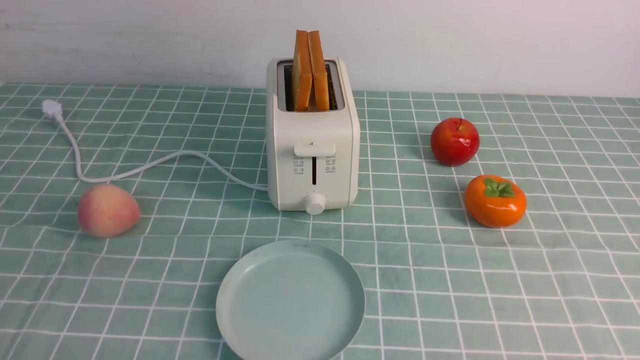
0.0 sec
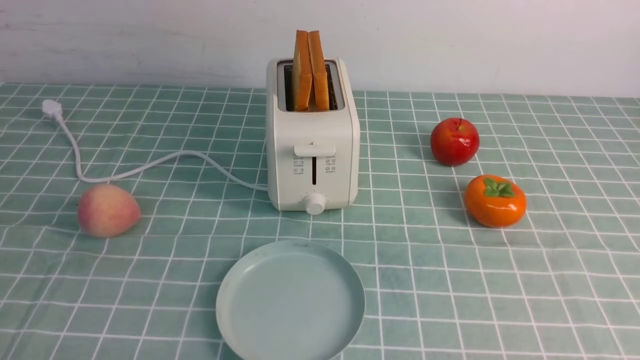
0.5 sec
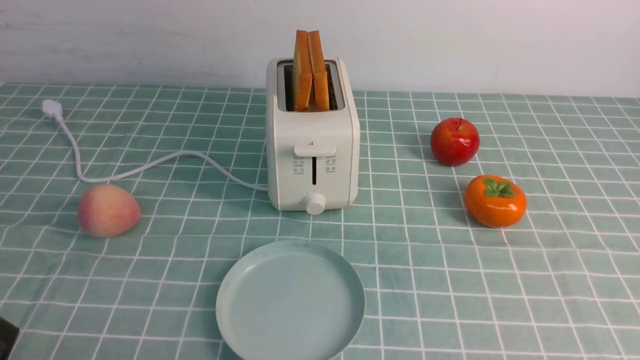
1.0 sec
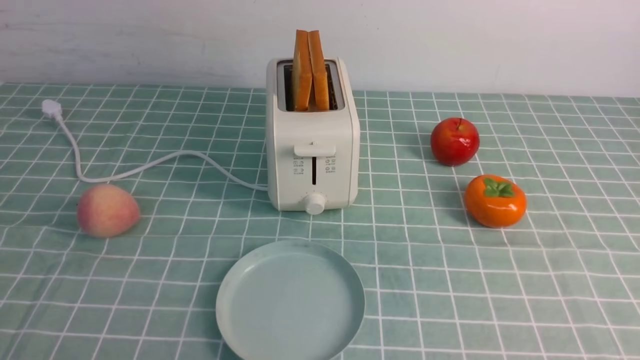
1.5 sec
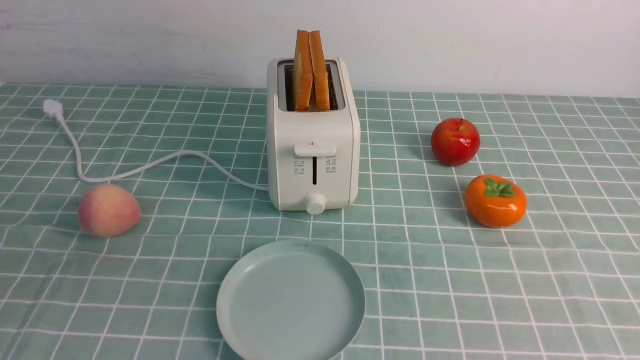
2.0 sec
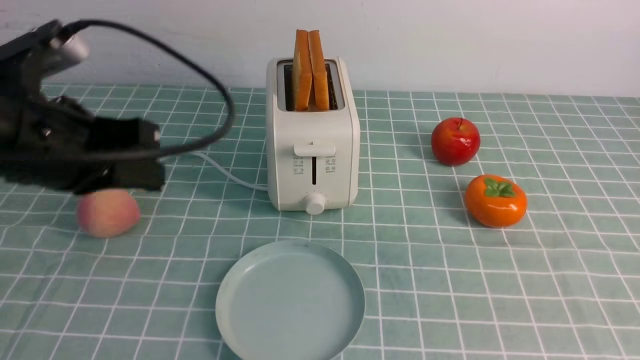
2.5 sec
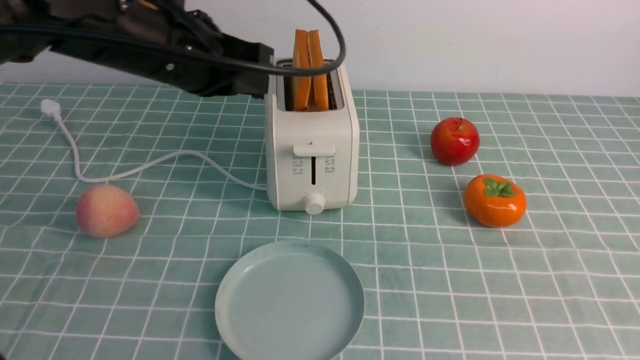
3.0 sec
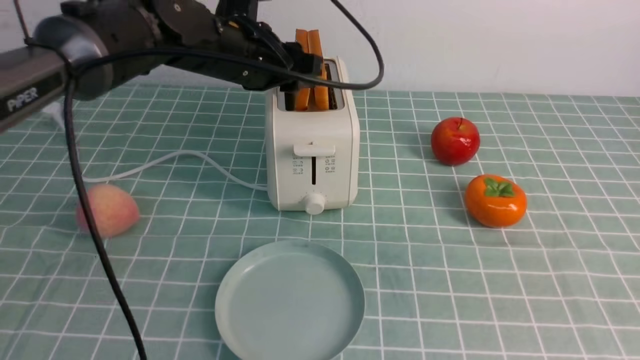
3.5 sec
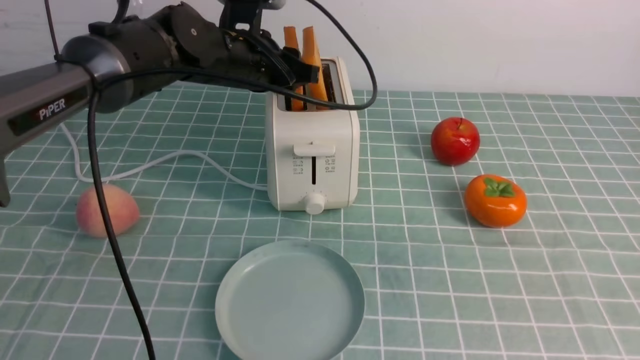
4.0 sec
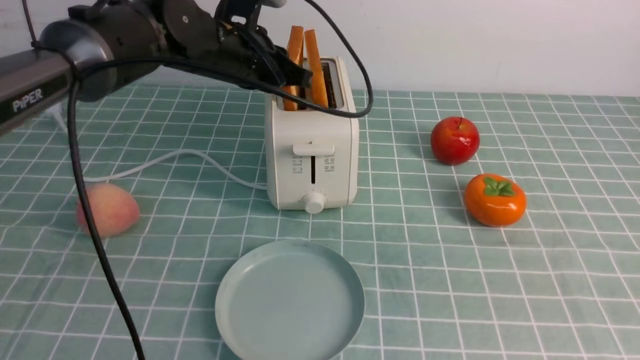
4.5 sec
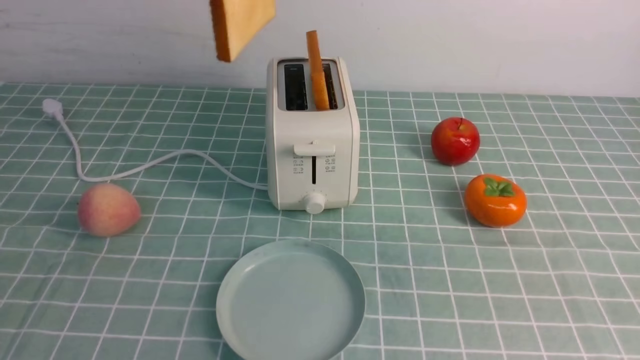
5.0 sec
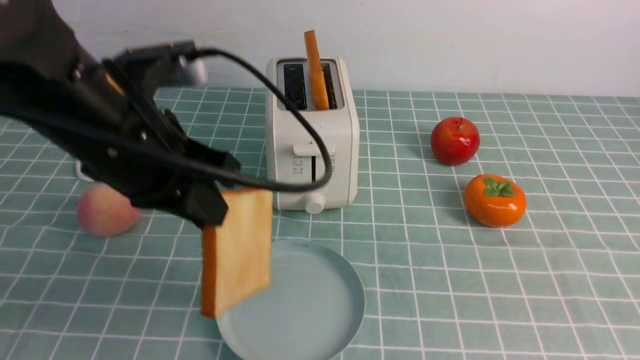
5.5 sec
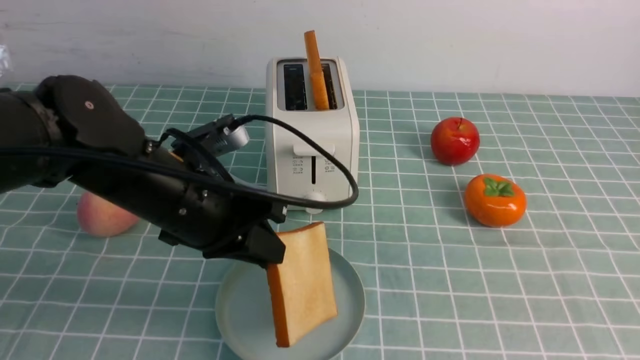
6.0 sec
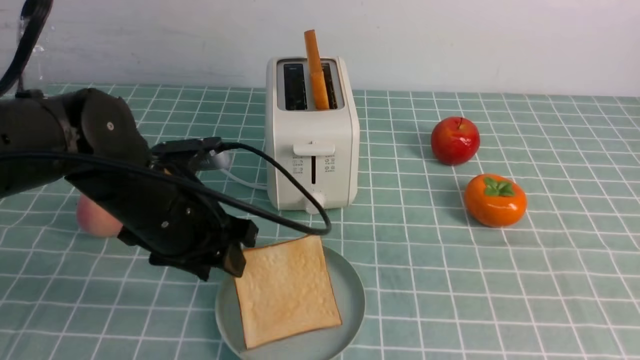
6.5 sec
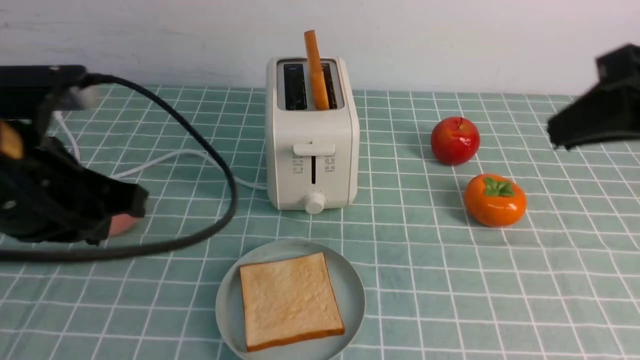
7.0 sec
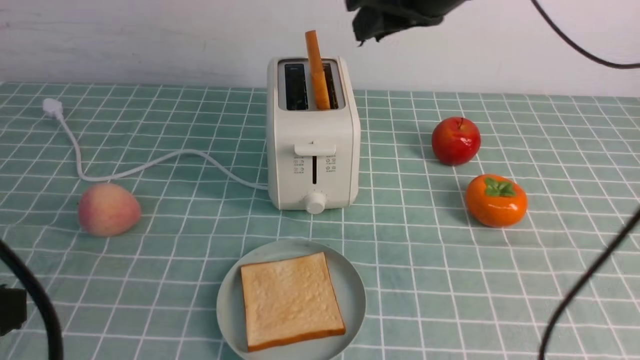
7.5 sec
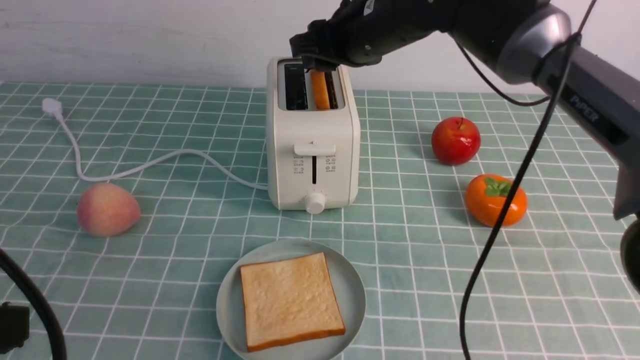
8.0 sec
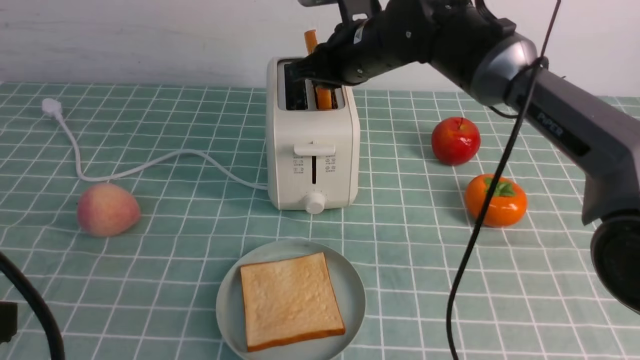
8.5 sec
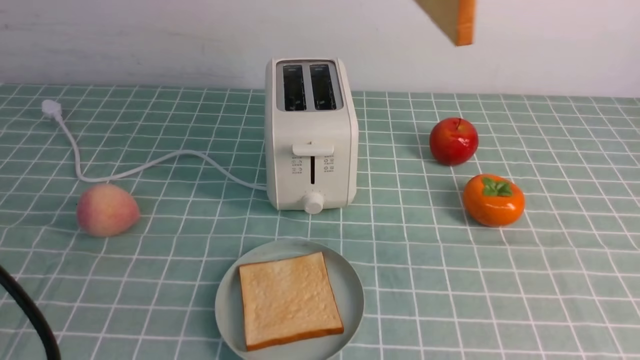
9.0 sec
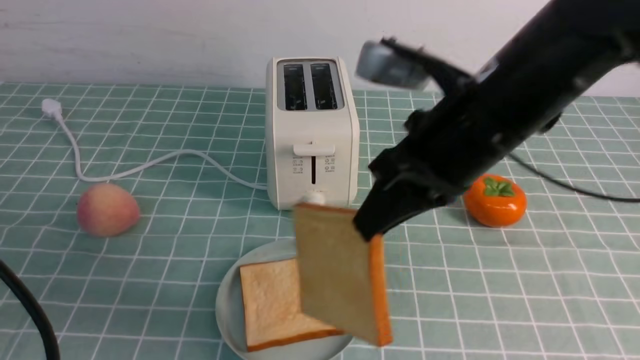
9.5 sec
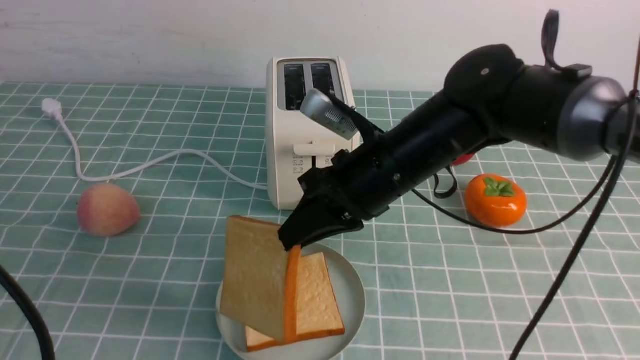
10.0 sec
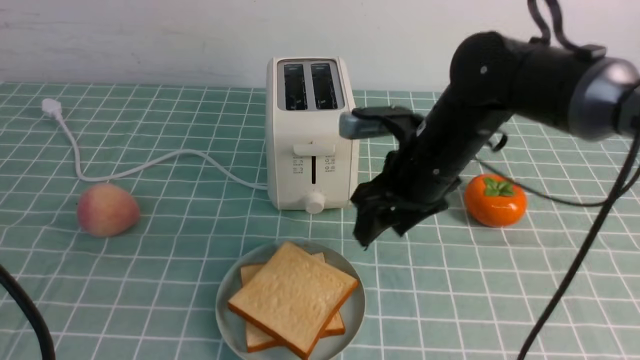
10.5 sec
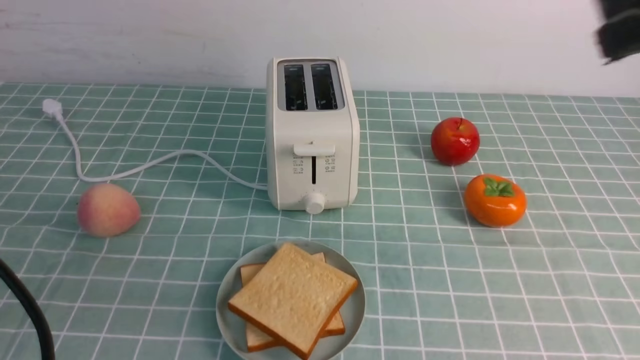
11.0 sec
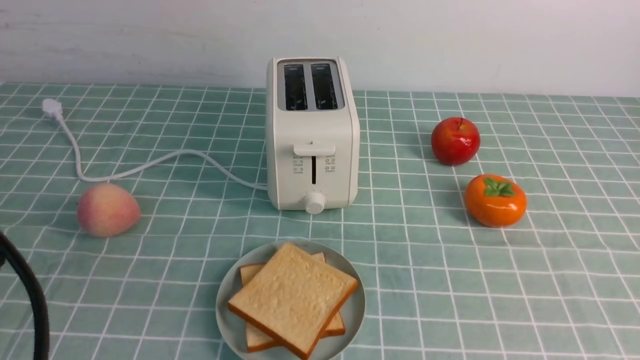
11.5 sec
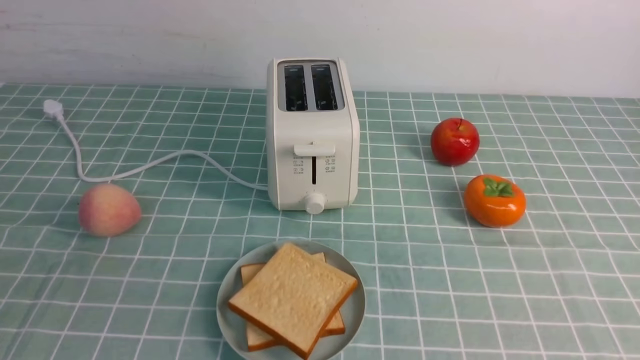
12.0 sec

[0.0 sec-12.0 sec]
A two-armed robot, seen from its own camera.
Task of the whole recording: take toasted bread from bread machine on blue coffee table place on plate.
Step, 0.0 sec to 4.5 sec: use the left arm to take out a slice of bread.
Step, 5.0 sec to 6.5 sec: use the left arm to put a slice of bread into the empty plate.
Step, 7.0 sec to 8.5 sec: use the right arm to take out a slice of bread.
Step, 9.0 sec to 10.0 sec: use the right arm to put a slice of bread into the plate.
2.0 sec to 4.0 sec: The right gripper shifts about 5 cm forward, while the left gripper heads forward, covering about 40 cm, and opens its fingers.
4.0 sec to 6.0 sec: The left gripper heads backward, covering approximately 15 cm, and reaches about 15 cm upward, then returns.
6.0 sec to 8.0 sec: The right gripper heads forward and to the left, covering roughly 40 cm, and opens up, while the left gripper heads backward and to the left, covering approximately 25 cm, and closes its fingers.
8.0 sec to 10.0 sec: The right gripper moves backward, approximately 10 cm, travels upward and back again, some 15 cm each way, and closes its fingers.
10.0 sec to 12.0 sec: The right gripper shifts approximately 40 cm backward and to the right, and closes its fingers.

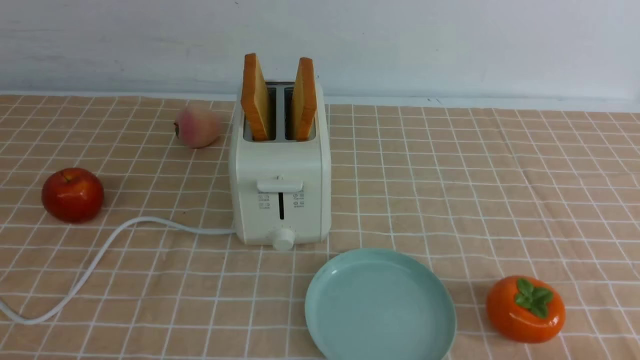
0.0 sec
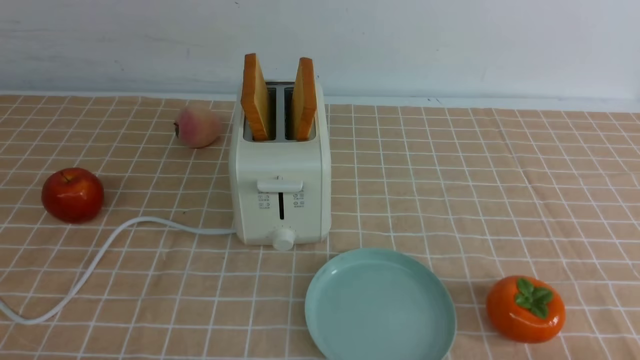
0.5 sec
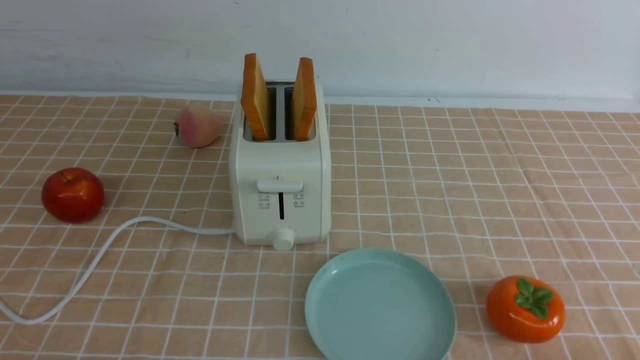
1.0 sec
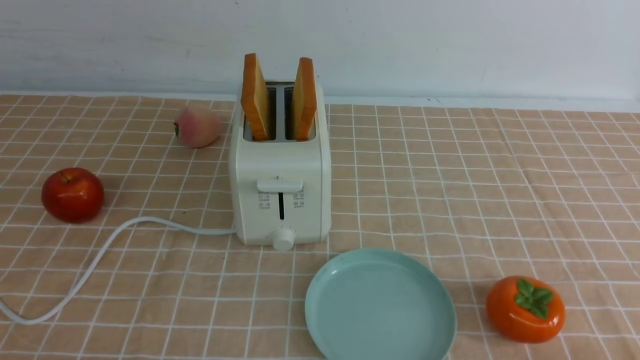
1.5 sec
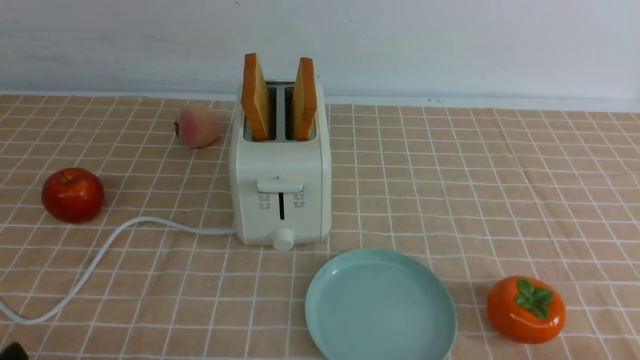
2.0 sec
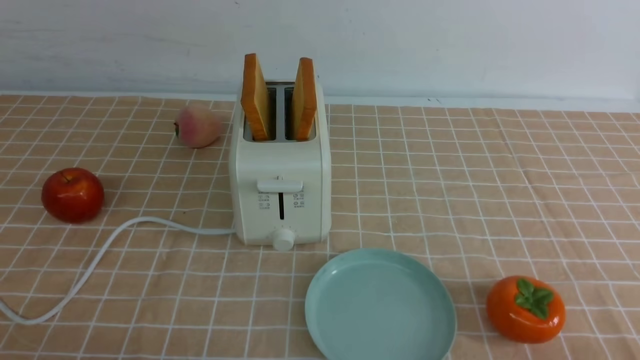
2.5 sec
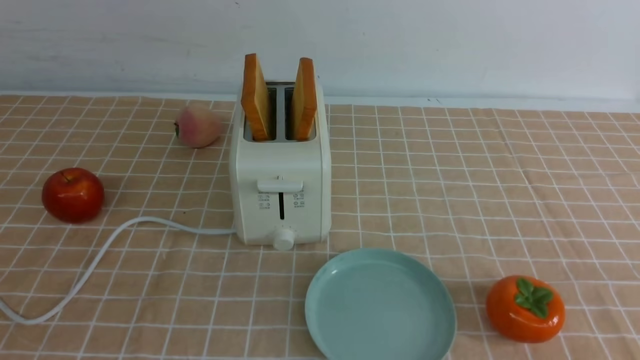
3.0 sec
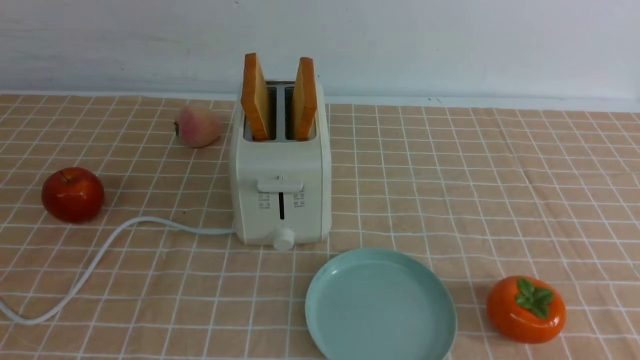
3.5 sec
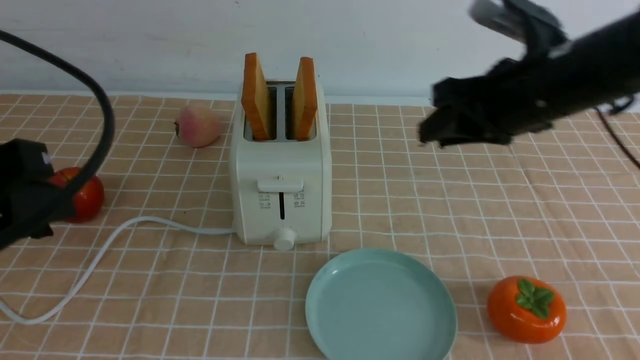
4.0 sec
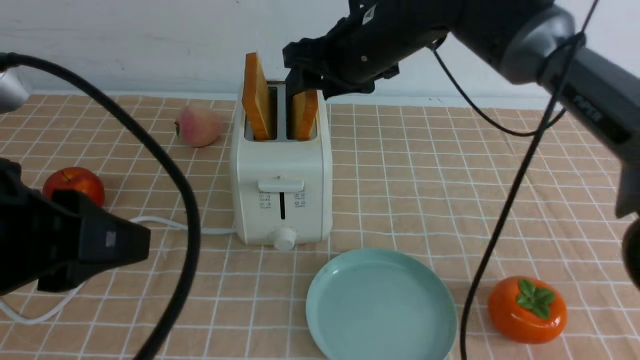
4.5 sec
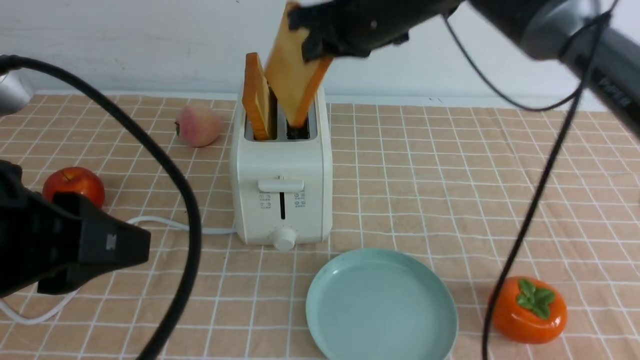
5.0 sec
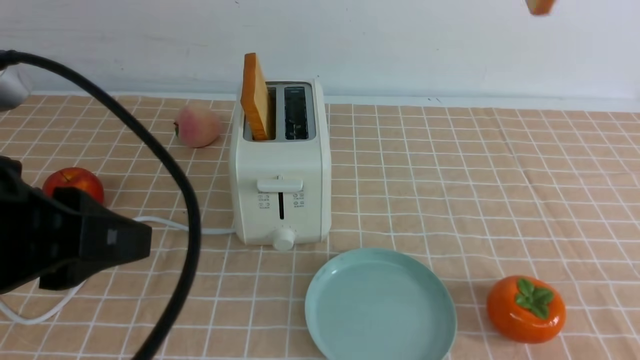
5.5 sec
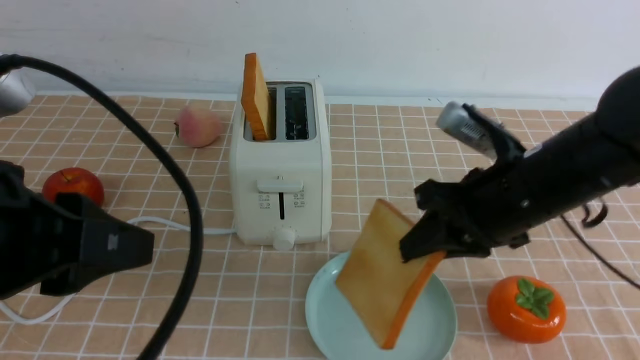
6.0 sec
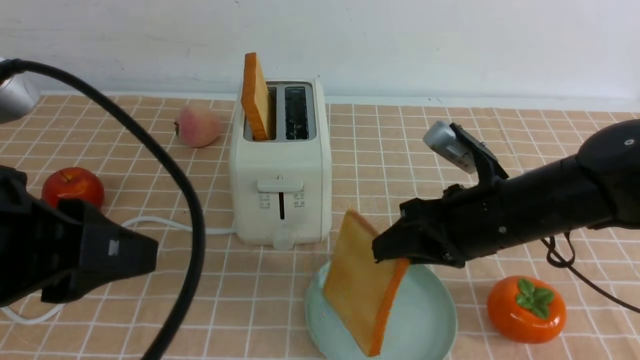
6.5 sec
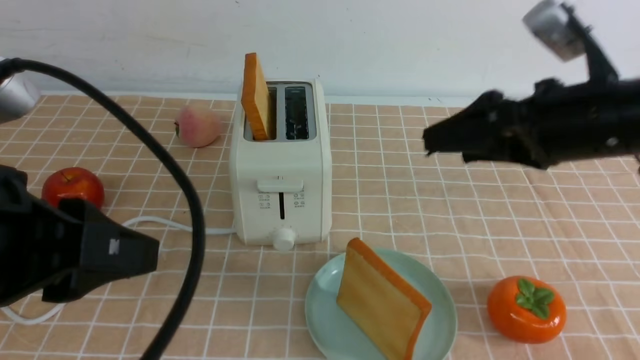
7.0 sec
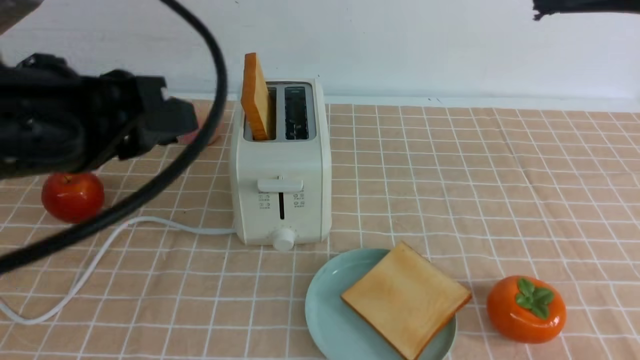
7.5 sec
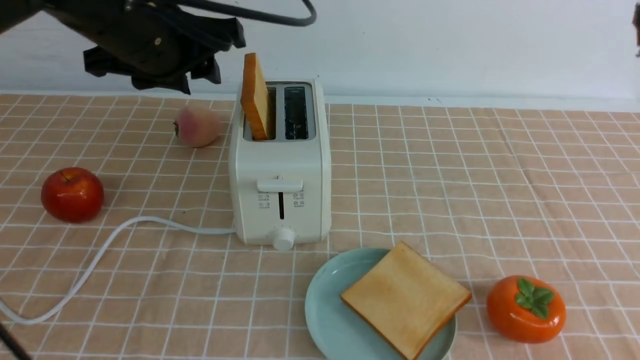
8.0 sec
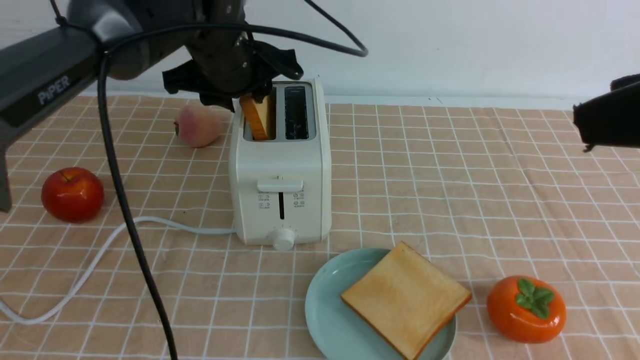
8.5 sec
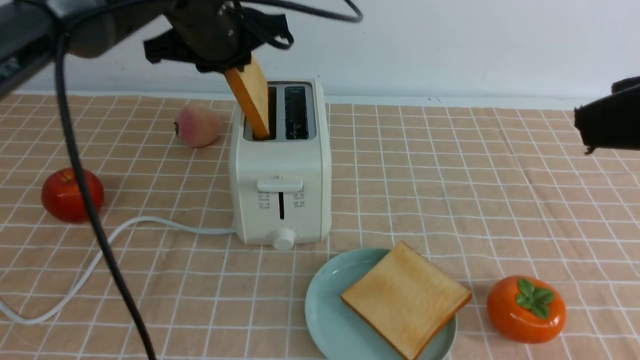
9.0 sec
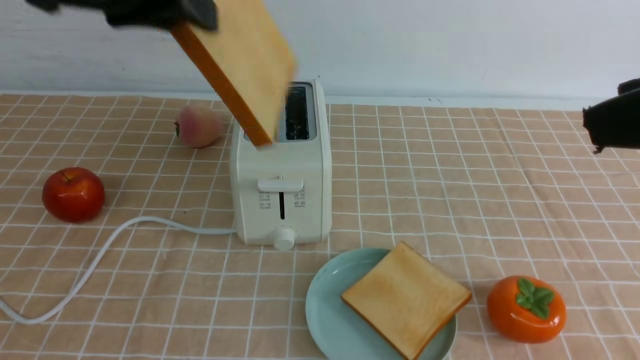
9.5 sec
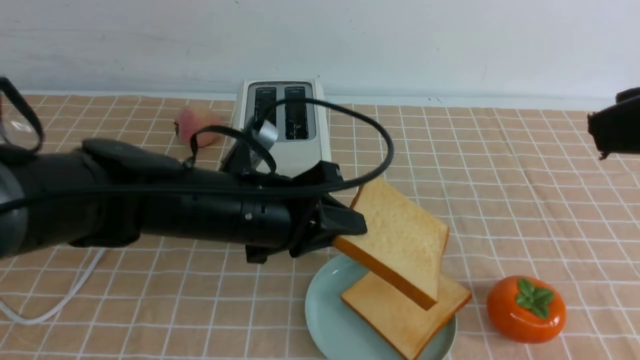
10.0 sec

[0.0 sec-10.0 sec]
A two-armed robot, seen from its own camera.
Task of the whole recording: take toasted bread from bread machine on light coffee tablecloth place on plate.
Step, 0.0 sec to 4.5 sec: use the right arm to take out a slice of bread.
Step, 5.5 sec to 7.0 sec: use the right arm to put a slice of bread into the plate.
Step, 7.5 sec to 9.0 sec: use the left arm to take out a slice of bread.
2.0 sec to 4.0 sec: The right gripper moves forward, upward and to the left, some 35 cm; the left gripper heads upward and forward, covering about 20 cm.
4.0 sec to 6.0 sec: The right gripper goes about 10 cm downward and backward.
6.0 sec to 8.0 sec: The right gripper shifts approximately 25 cm upward and backward, and opens. Meanwhile the left gripper is displaced forward by roughly 20 cm.
8.0 sec to 10.0 sec: The left gripper moves up and down over about 20 cm, changing direction 2 times, and closes its fingers.
